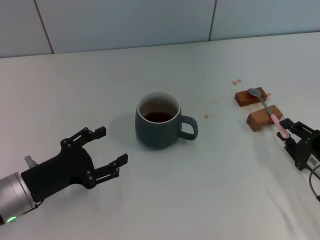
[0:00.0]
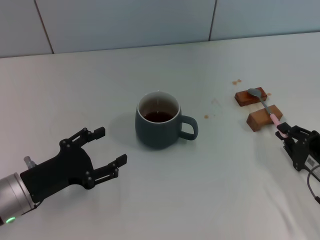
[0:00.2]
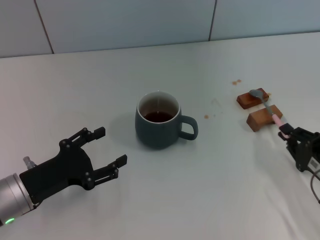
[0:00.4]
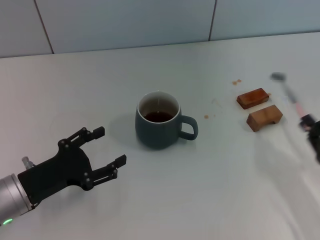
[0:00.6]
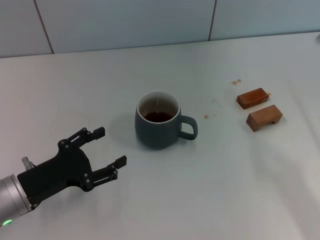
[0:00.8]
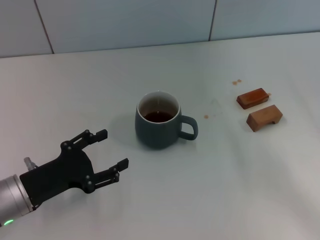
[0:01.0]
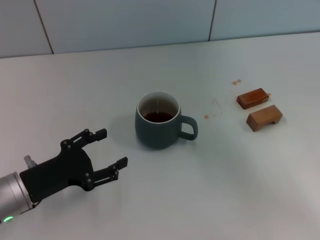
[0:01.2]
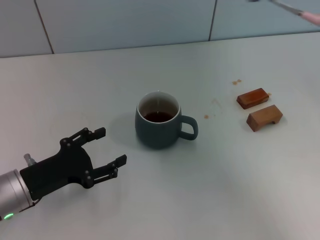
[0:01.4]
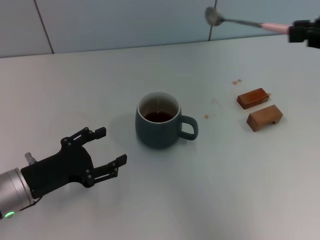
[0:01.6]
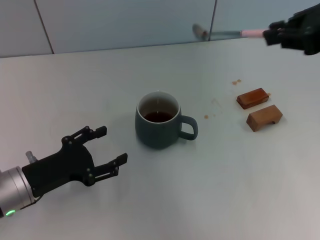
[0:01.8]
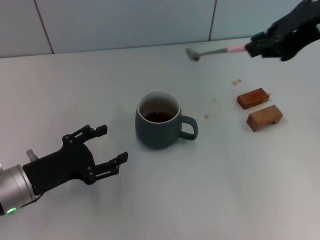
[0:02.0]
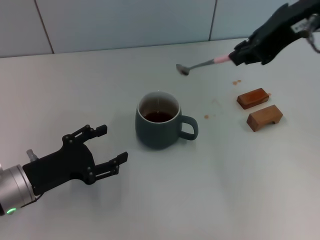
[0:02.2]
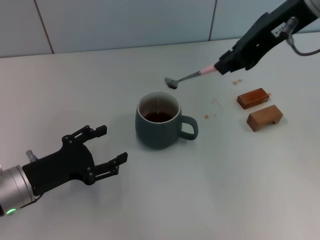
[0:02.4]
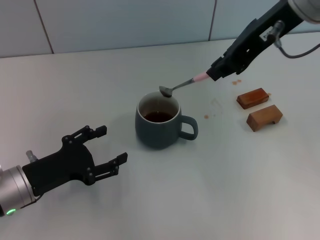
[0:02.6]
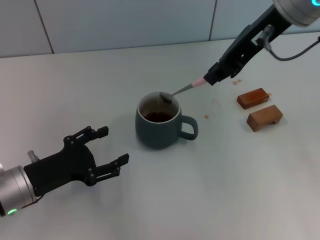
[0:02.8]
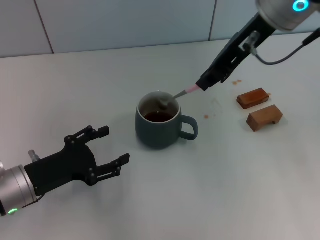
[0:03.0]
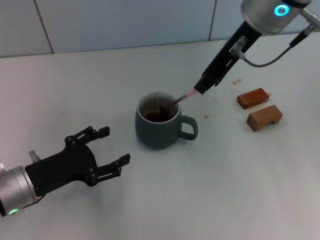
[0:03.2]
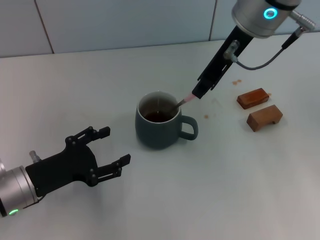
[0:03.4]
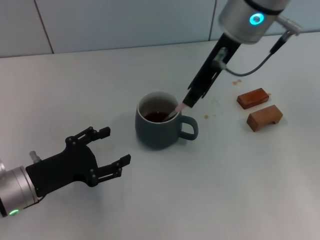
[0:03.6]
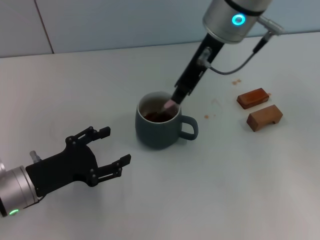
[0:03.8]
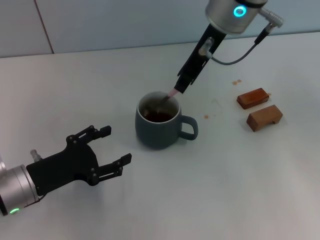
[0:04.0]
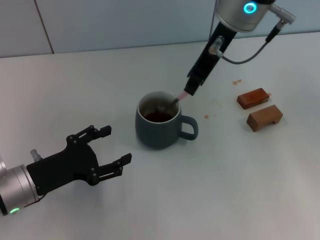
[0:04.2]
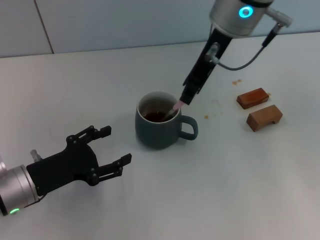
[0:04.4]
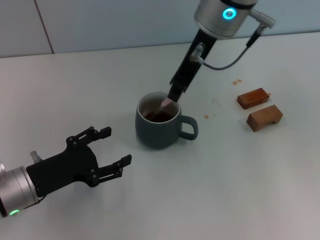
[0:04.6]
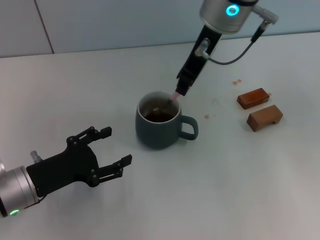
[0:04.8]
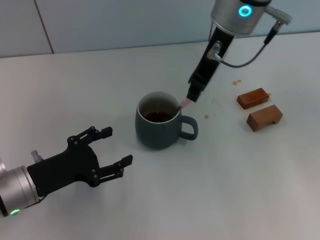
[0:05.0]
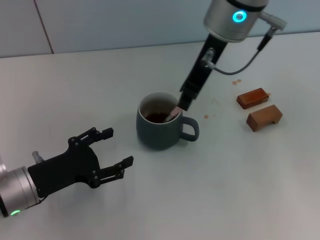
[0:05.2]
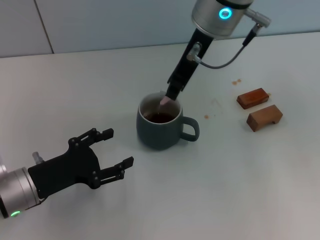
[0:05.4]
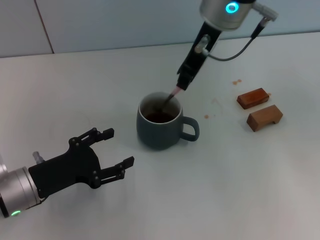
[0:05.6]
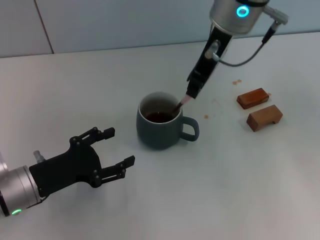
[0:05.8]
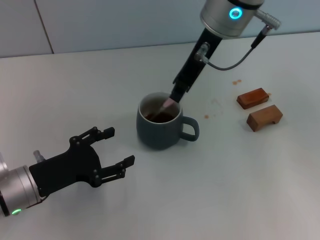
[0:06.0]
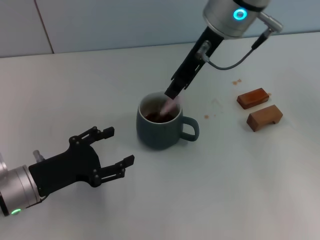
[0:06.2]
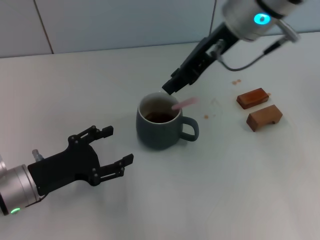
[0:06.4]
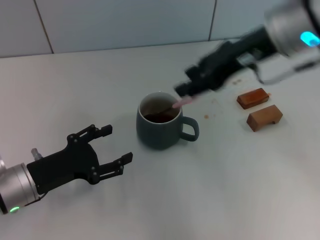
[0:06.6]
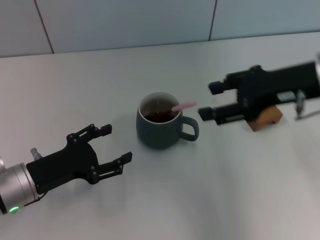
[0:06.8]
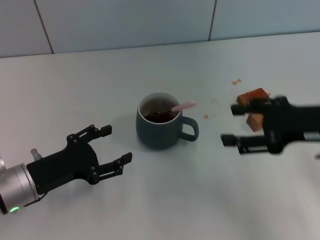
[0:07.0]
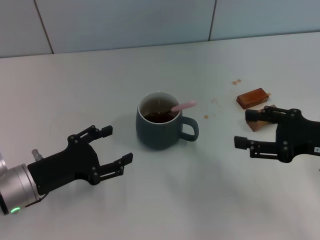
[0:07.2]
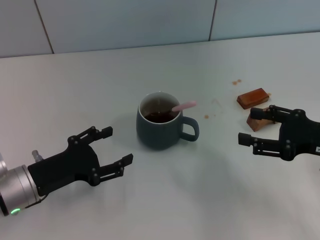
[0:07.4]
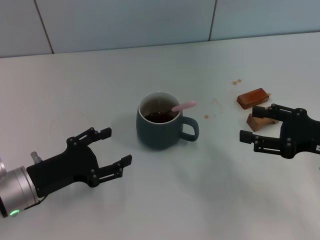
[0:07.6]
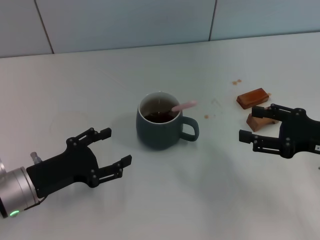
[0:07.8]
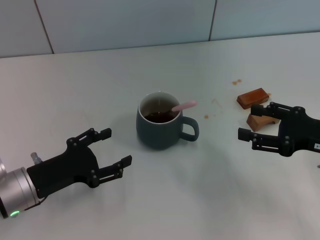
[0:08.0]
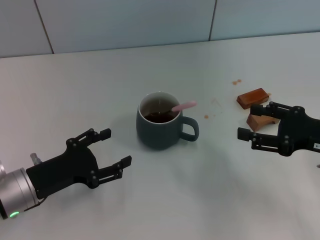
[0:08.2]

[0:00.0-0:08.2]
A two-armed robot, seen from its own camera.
Task of the whole recording: Move the grey cup to the center, lift the pink spoon, stir it three times in the cup, and put the spoon into the cup.
Step, 0:00.8 to 0:06.2: Stir the coffee in the cup with the right gripper.
0:00.0 to 0:01.6: The right gripper moves upward, some 30 cm, and closes.
0:01.6 to 0:03.2: The right gripper shifts some 20 cm to the left and forward.
0:03.2 to 0:05.0: The grippers make only small movements.
0:05.0 to 0:06.6: The right gripper travels to the right and backward by approximately 10 cm, and opens its fingers.
0:06.6 to 0:08.2: The right gripper goes approximately 20 cm downward, to the right and backward, and opens.
